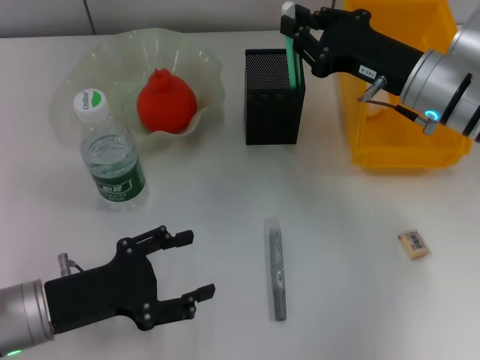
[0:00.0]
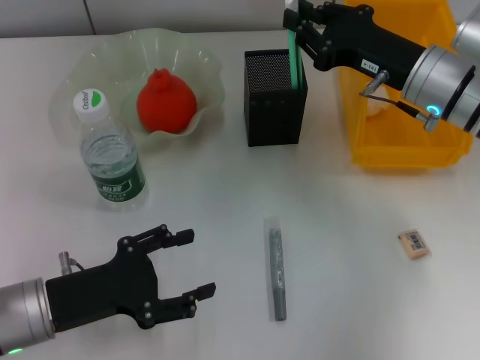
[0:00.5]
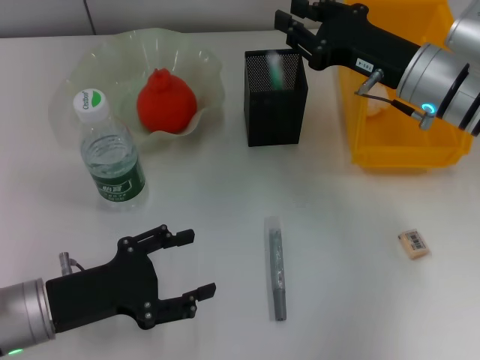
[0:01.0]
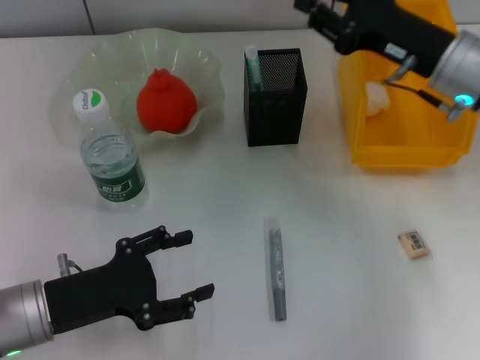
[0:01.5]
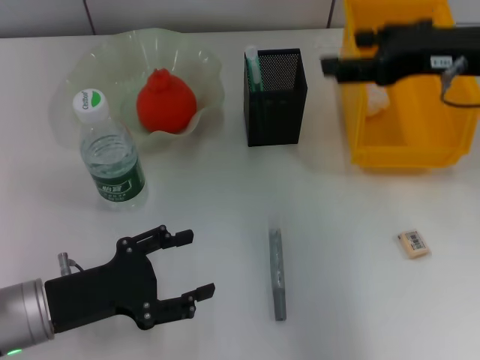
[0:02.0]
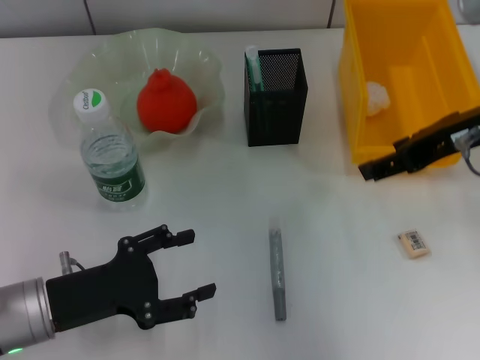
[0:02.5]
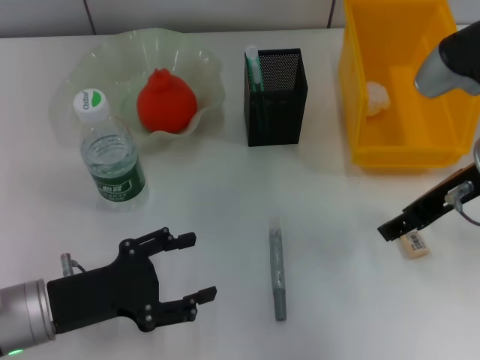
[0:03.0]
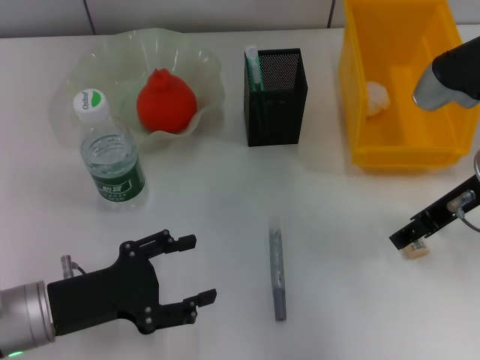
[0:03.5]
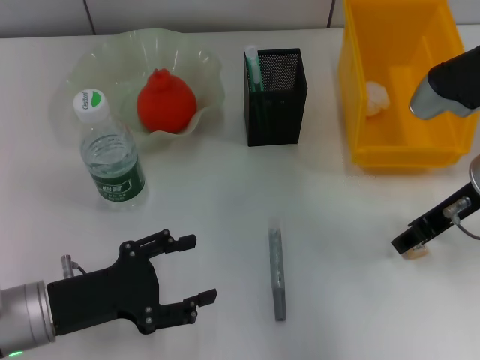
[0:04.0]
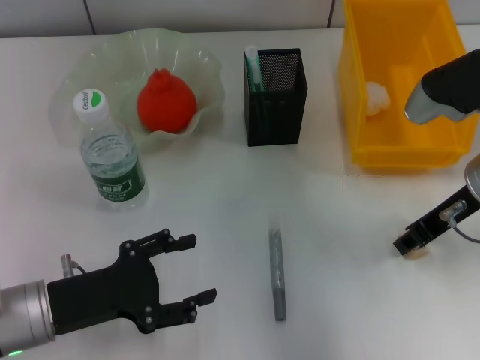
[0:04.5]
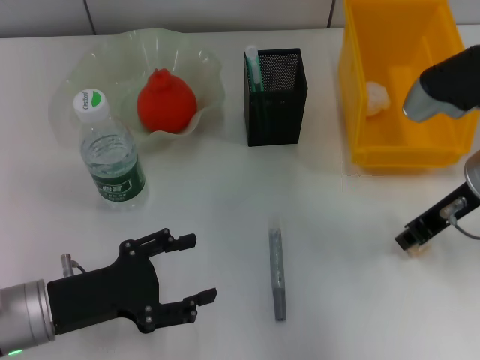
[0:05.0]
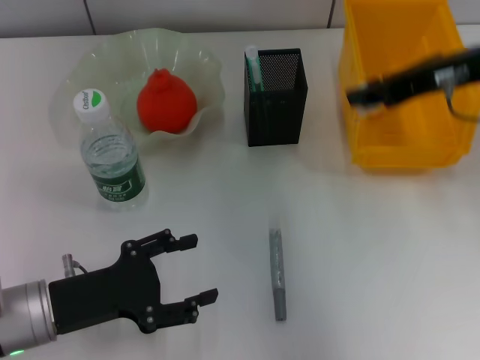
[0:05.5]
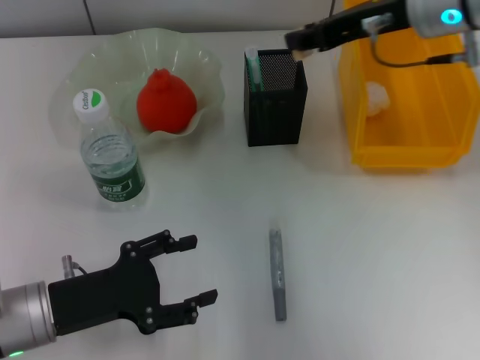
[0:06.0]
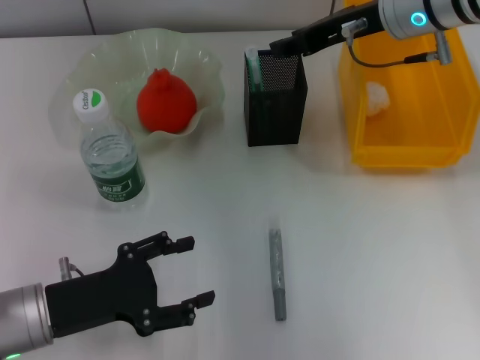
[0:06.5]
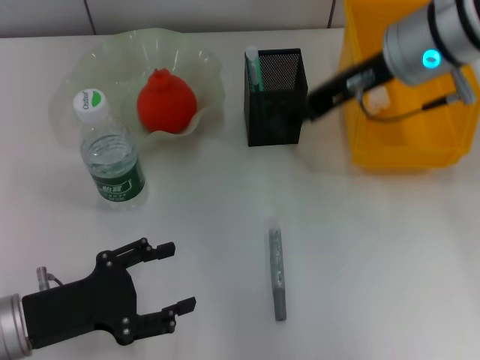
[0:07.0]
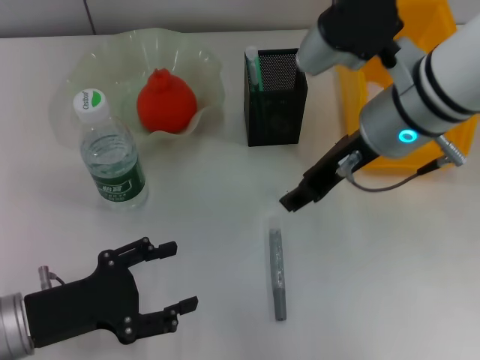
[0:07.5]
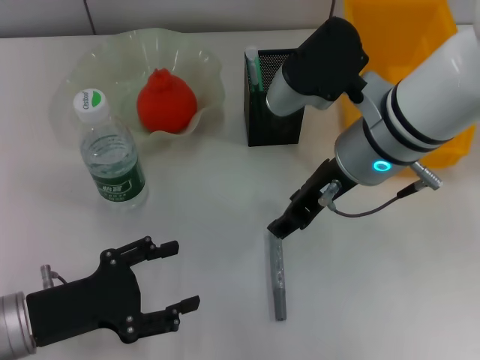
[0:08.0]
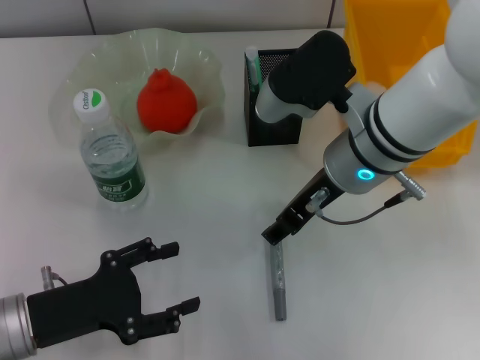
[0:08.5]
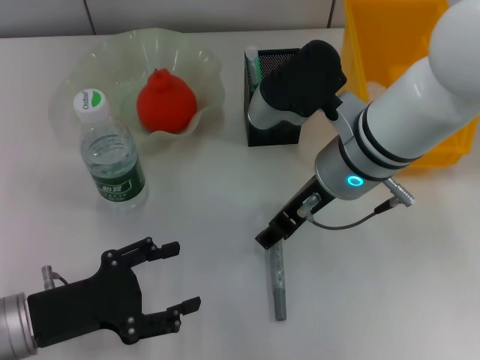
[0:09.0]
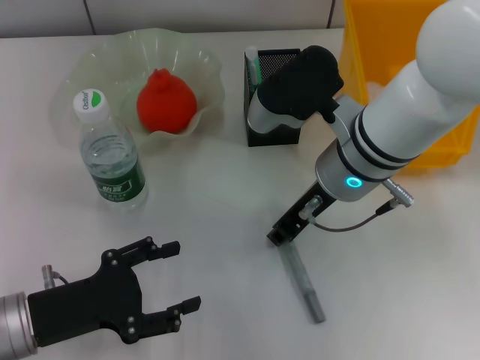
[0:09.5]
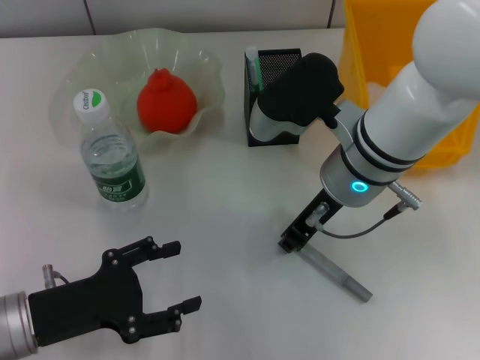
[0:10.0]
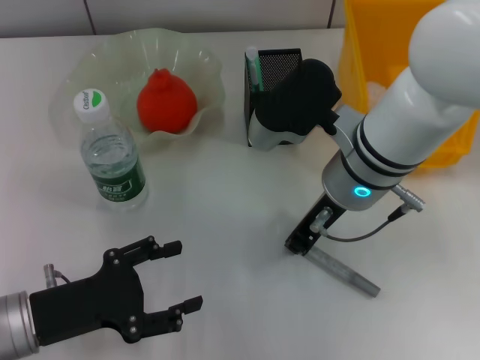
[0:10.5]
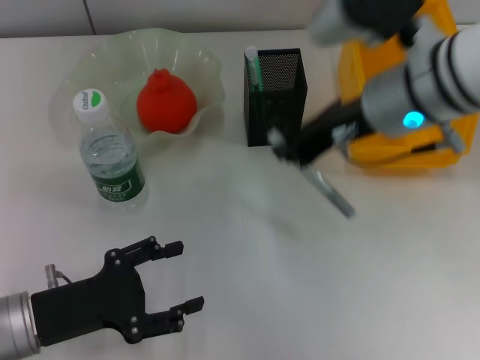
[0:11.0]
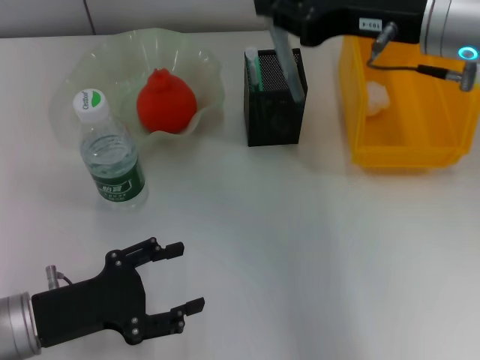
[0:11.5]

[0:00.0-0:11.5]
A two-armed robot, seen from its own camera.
Step, 0:01.5 to 0:04.5: Grab the eraser with the right hand.
Step, 0:05.0 to 0:06.5: Put the eraser into the pen holder with the right hand.
Step, 0:07.0 to 0:10.5: Grab the gray glue with the right hand.
0:00.0 to 0:02.0: The right gripper heads upward, covering about 10 cm, and opens up.
0:02.0 to 0:04.0: The right gripper heads downward, covering some 10 cm.
0:04.0 to 0:06.0: The right gripper travels forward and upward by some 10 cm, and closes.
0:06.0 to 0:07.5: The right gripper travels backward and to the left by some 10 cm, and opens.
0:07.5 to 0:09.5: The right gripper changes place by some 5 cm.
0:09.5 to 0:11.5: The right gripper travels upward and to the right by roughly 15 cm, and closes up.

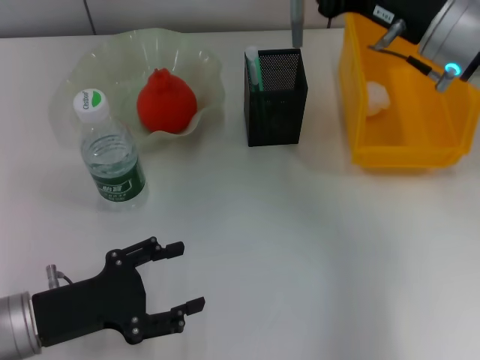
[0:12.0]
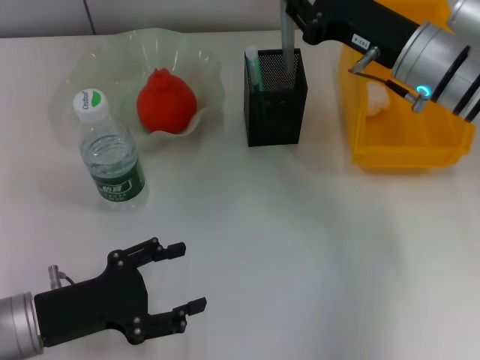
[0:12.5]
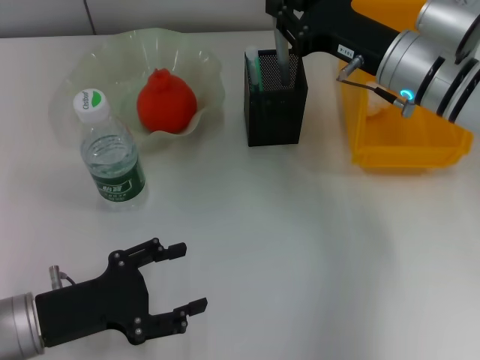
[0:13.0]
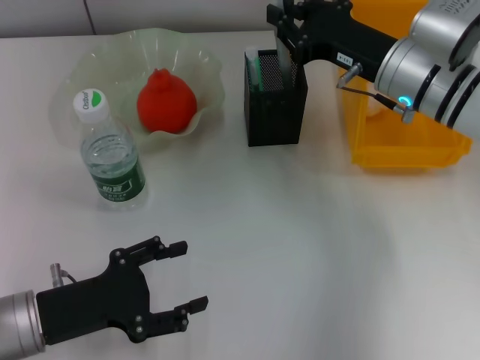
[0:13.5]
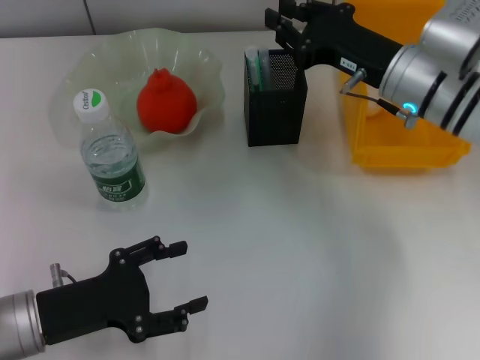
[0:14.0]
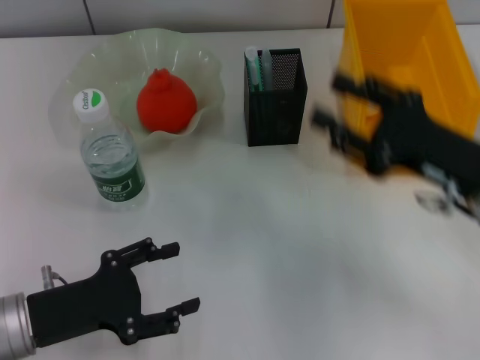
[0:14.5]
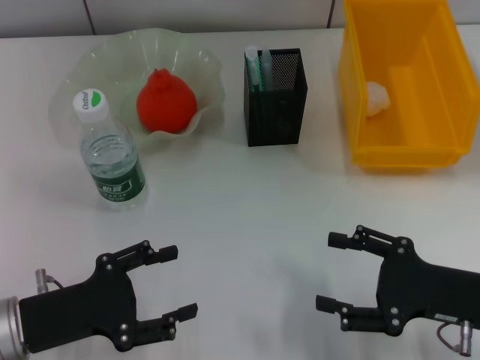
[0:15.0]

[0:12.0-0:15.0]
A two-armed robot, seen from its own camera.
Step, 0:12.0 to 0:14.0: Place the gray glue into the pen holder with the right hand.
0:12.0 to 0:13.5: The right gripper travels downward by approximately 5 cm.
0:13.5 to 0:15.0: The right gripper travels backward and to the right by roughly 20 cm, and opens.
